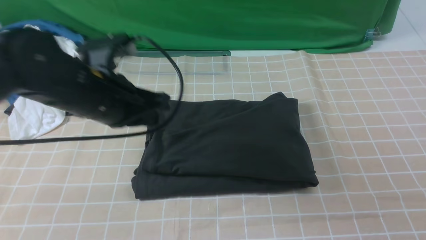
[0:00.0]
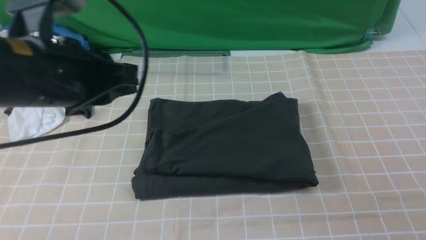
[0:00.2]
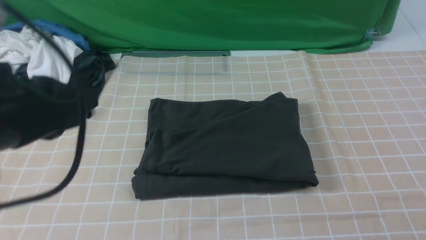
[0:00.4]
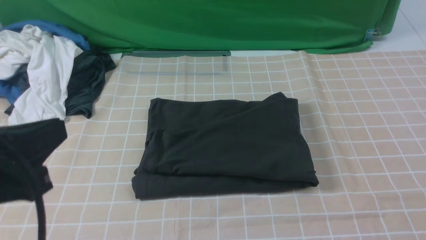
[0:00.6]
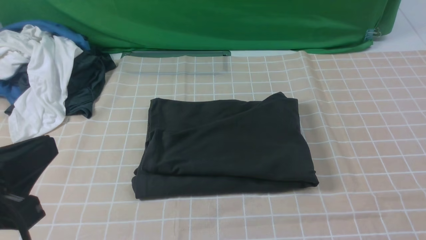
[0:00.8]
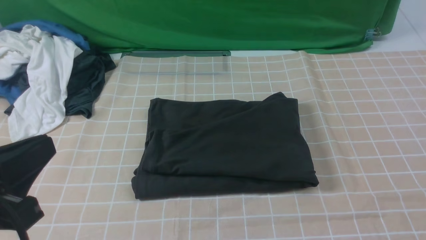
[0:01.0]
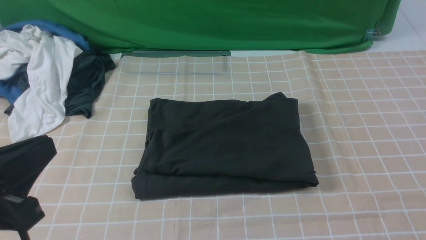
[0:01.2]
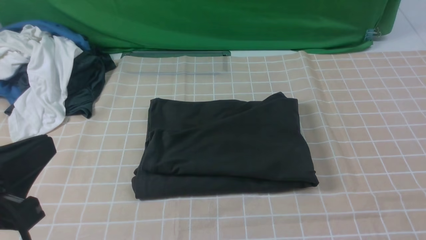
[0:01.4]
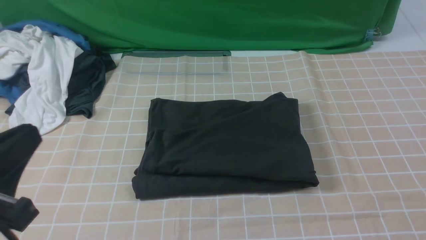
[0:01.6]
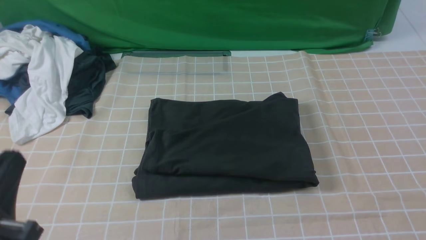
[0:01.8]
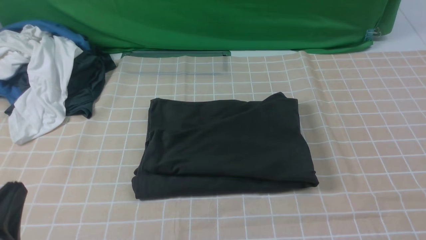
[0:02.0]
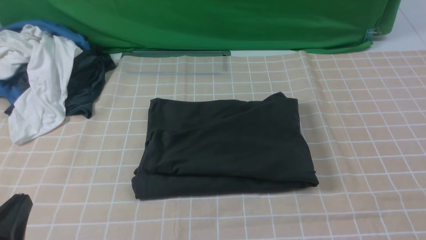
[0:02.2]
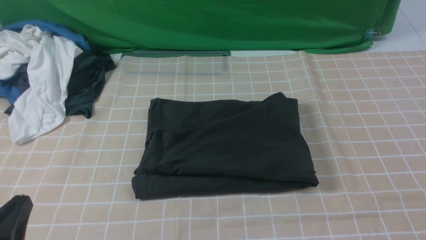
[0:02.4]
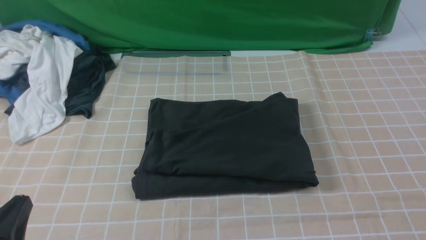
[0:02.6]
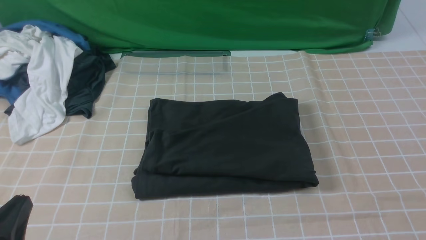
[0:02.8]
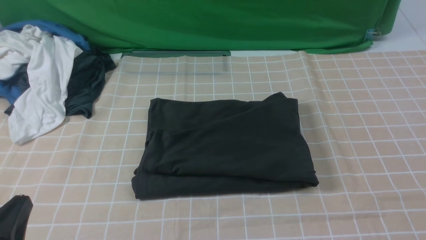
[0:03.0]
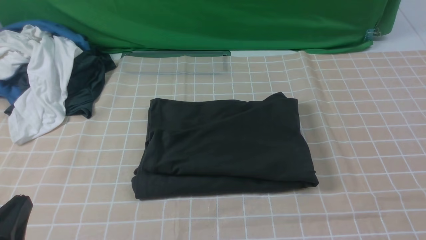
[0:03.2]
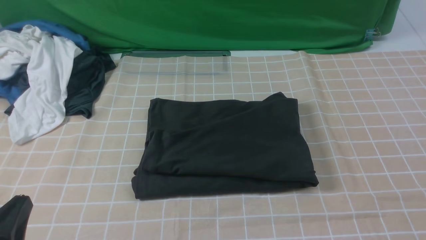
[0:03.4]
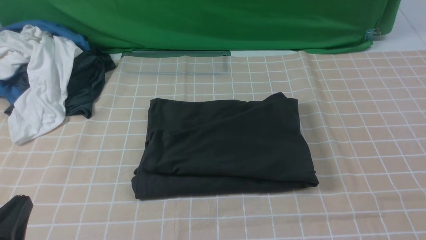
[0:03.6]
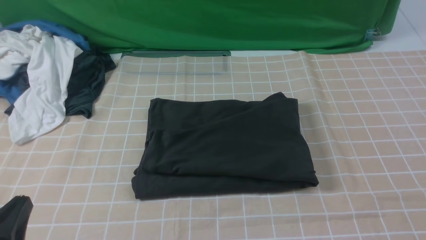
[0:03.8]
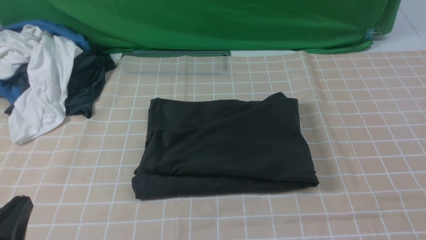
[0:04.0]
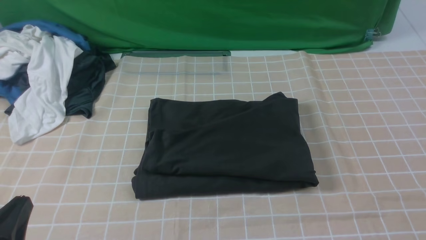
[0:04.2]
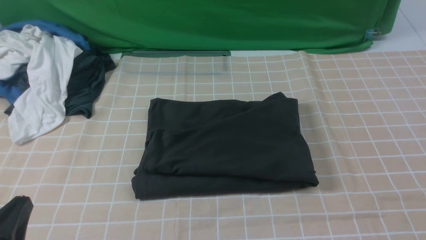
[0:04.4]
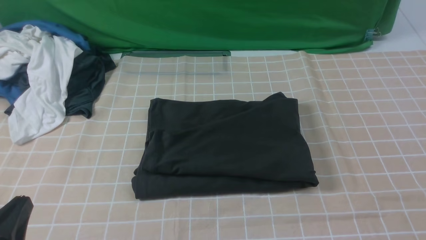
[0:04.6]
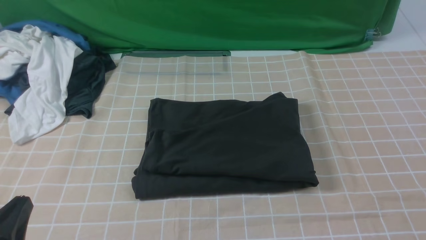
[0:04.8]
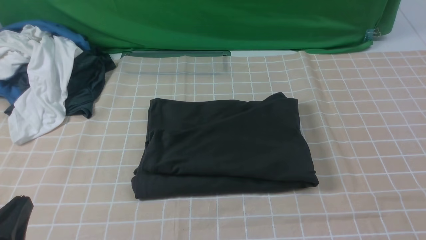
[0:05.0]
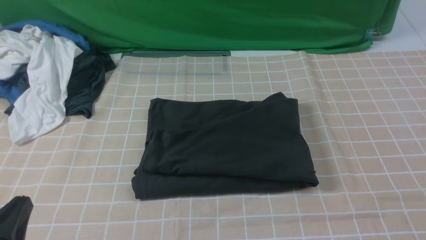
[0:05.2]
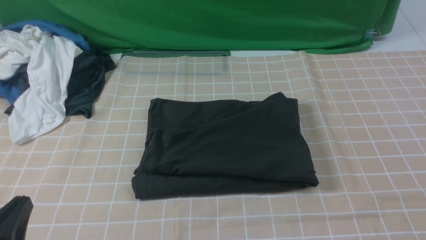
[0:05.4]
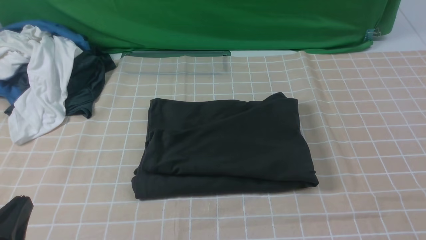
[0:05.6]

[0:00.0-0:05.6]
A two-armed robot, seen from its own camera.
0:00.0 to 0:01.4: The left gripper is displaced backward and to the left by roughly 20 cm. The right gripper moves backward and downward, roughly 10 cm.
0:01.4 to 0:02.8: The left gripper moves downward, approximately 10 cm.
0:04.2 to 0:05.6: Both grippers stay put.

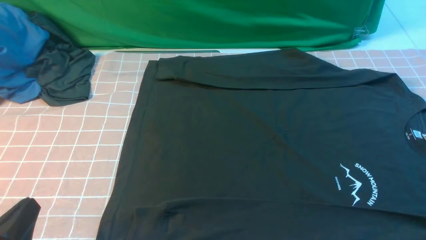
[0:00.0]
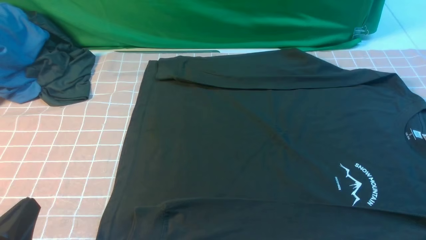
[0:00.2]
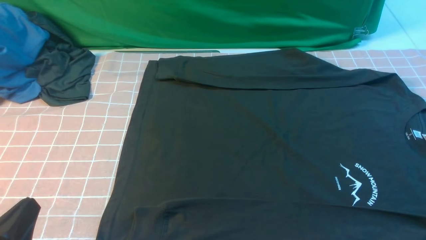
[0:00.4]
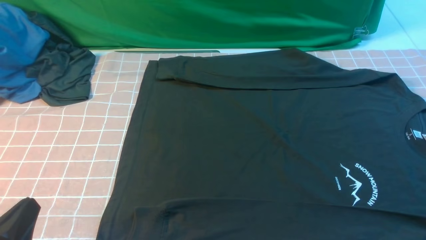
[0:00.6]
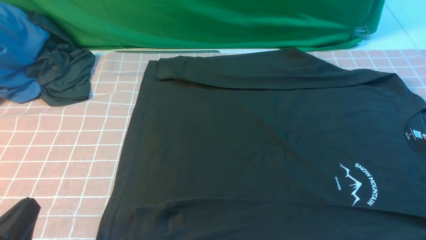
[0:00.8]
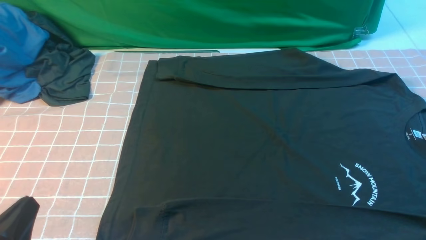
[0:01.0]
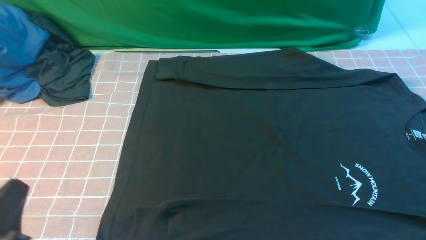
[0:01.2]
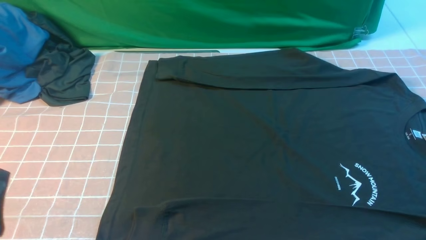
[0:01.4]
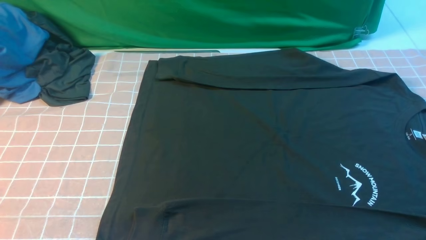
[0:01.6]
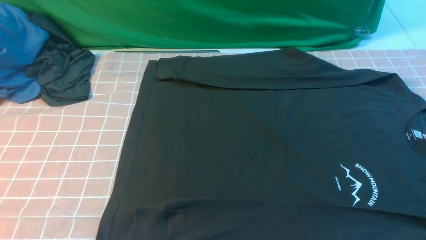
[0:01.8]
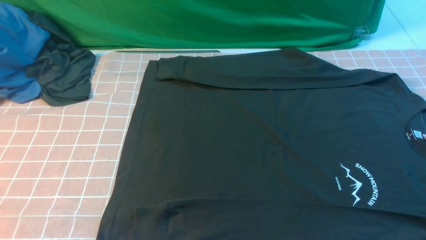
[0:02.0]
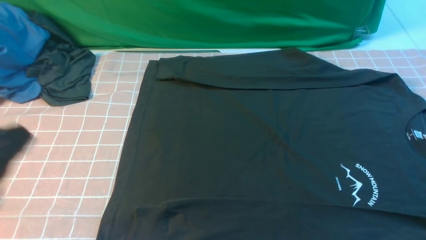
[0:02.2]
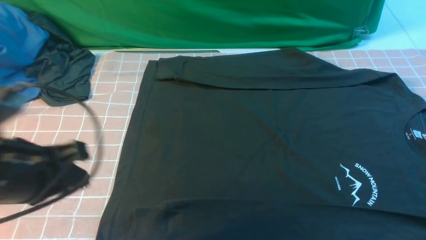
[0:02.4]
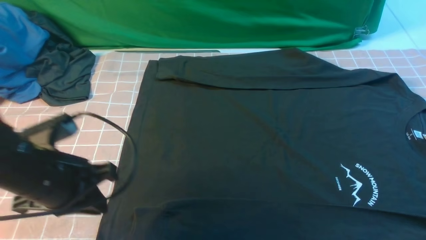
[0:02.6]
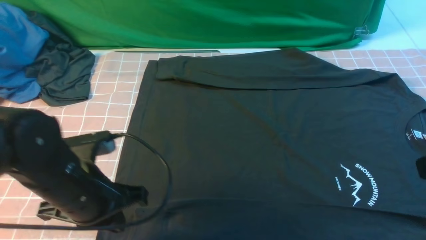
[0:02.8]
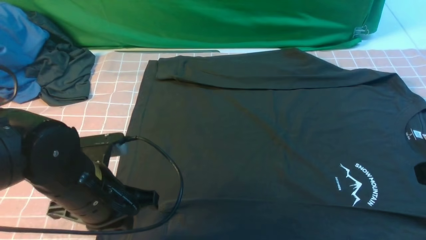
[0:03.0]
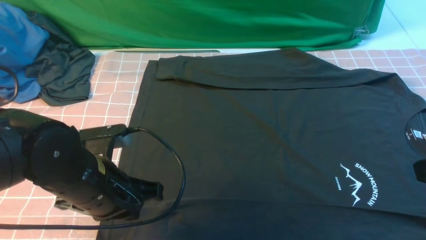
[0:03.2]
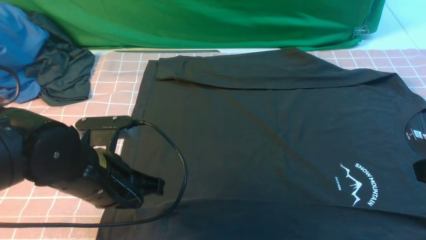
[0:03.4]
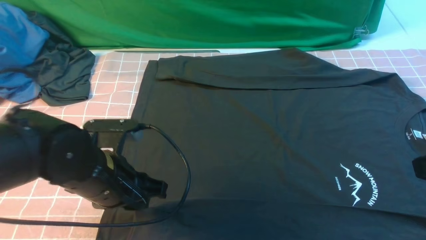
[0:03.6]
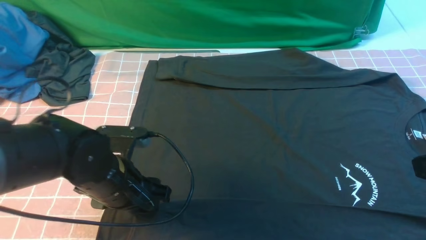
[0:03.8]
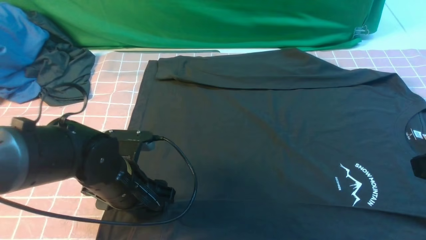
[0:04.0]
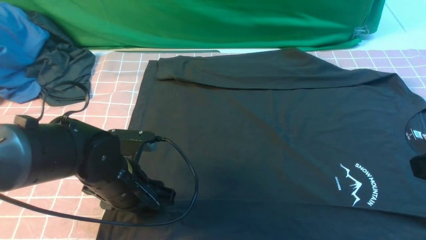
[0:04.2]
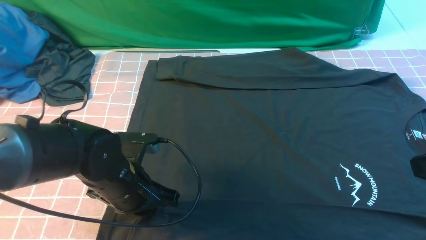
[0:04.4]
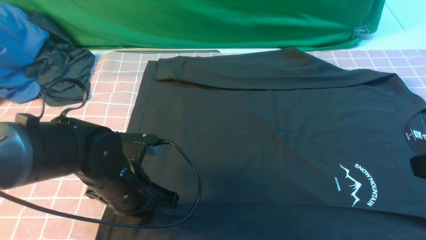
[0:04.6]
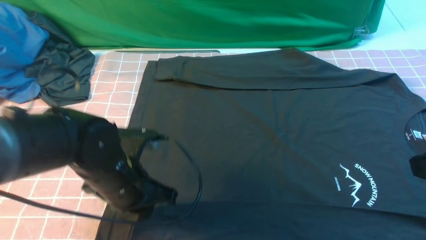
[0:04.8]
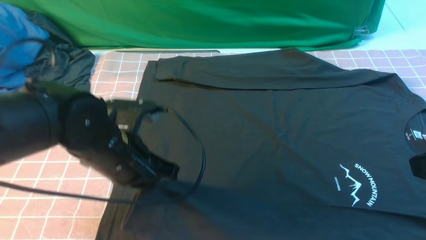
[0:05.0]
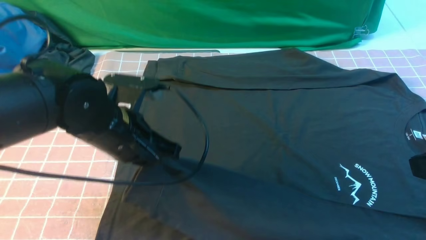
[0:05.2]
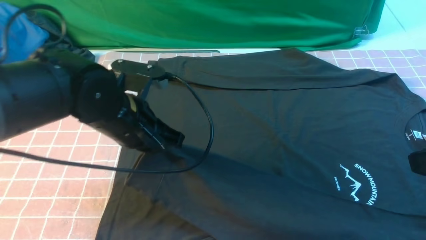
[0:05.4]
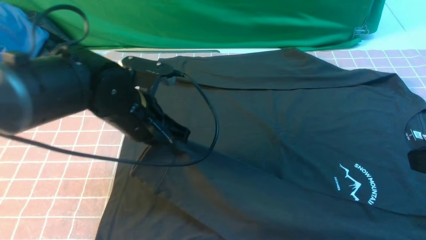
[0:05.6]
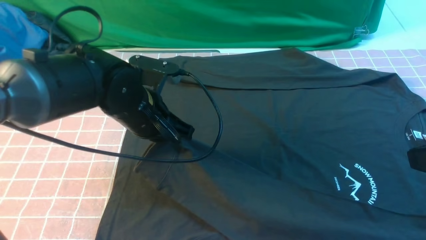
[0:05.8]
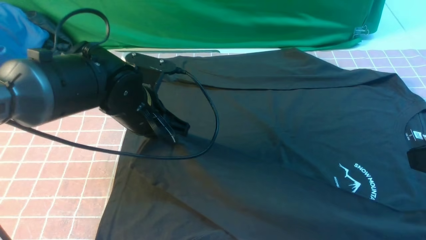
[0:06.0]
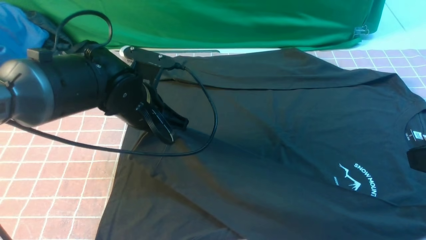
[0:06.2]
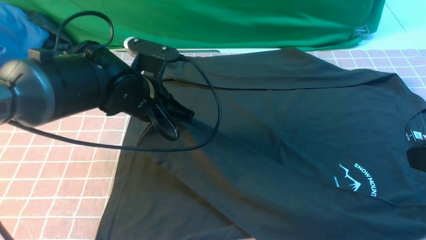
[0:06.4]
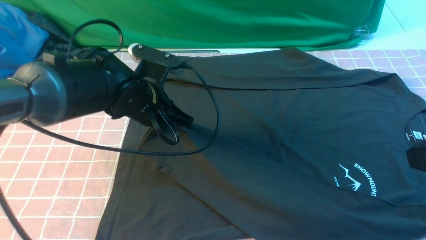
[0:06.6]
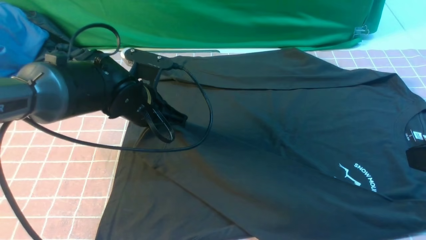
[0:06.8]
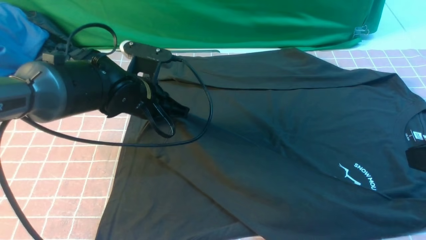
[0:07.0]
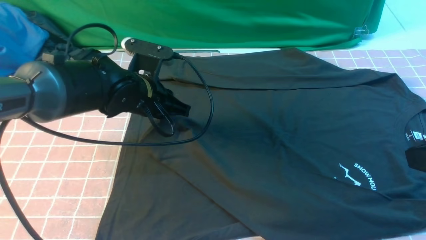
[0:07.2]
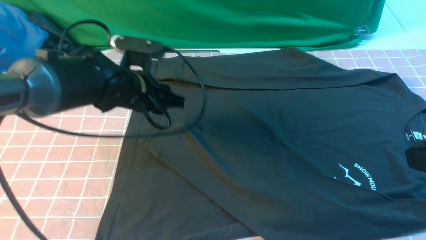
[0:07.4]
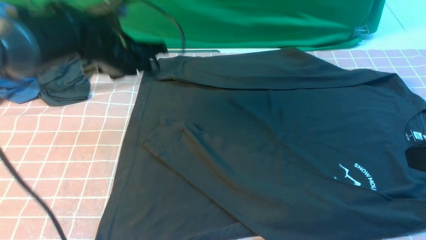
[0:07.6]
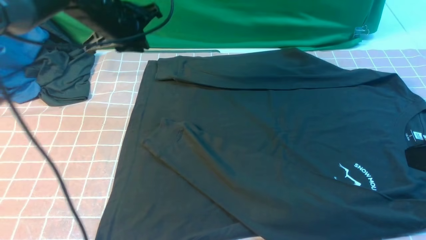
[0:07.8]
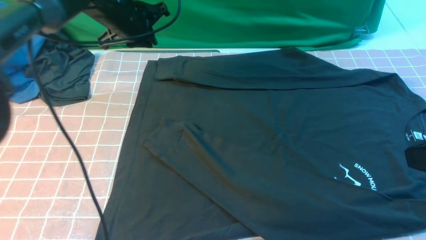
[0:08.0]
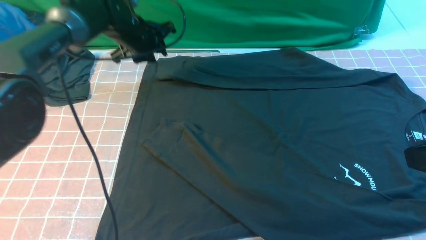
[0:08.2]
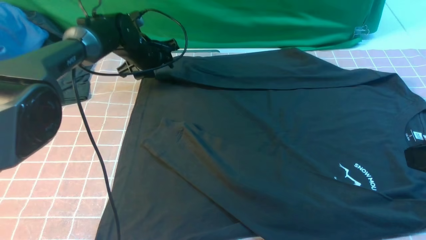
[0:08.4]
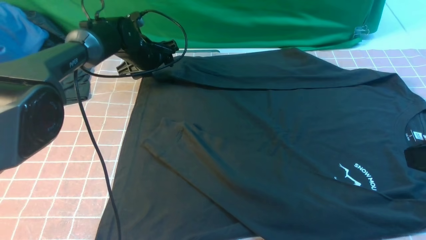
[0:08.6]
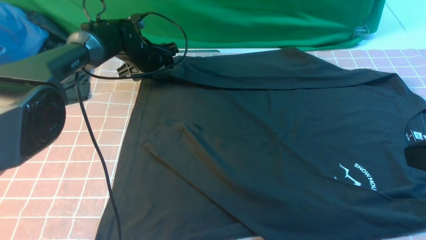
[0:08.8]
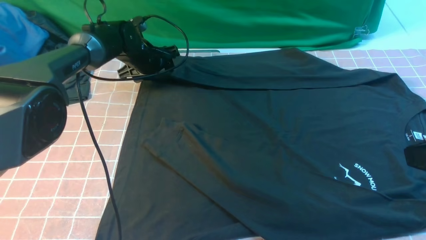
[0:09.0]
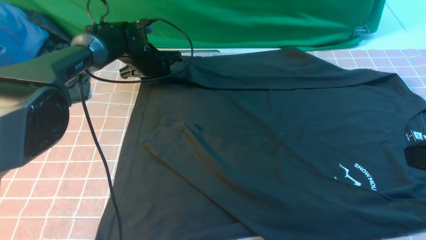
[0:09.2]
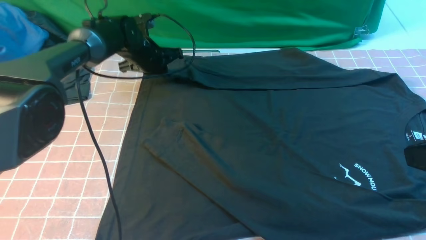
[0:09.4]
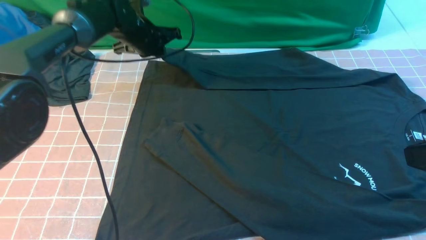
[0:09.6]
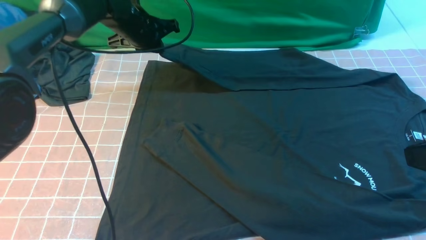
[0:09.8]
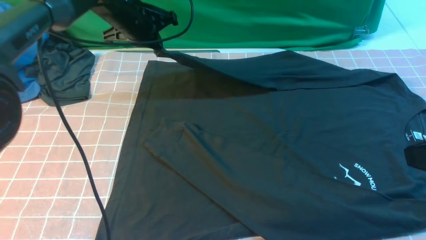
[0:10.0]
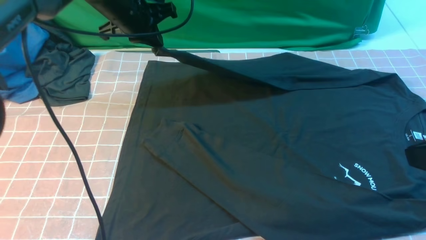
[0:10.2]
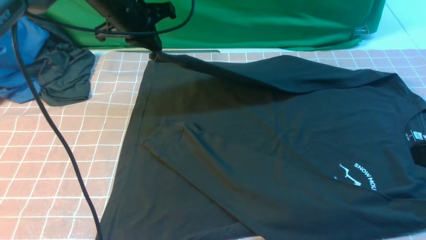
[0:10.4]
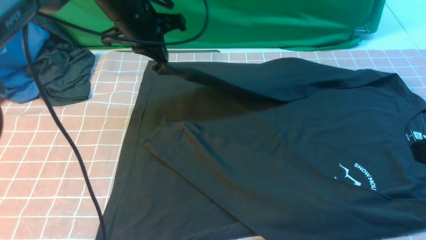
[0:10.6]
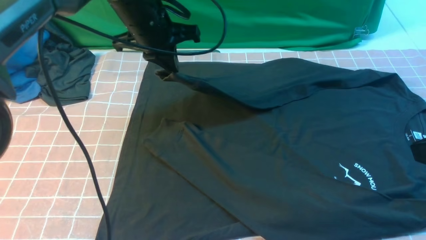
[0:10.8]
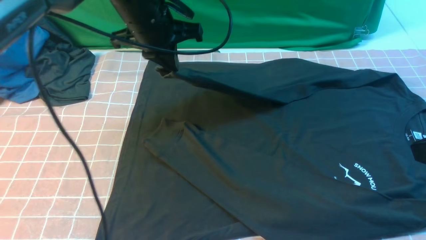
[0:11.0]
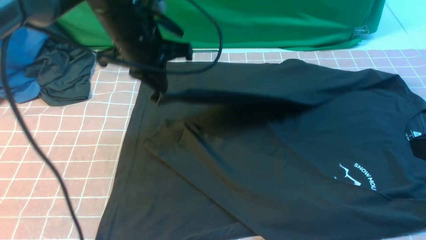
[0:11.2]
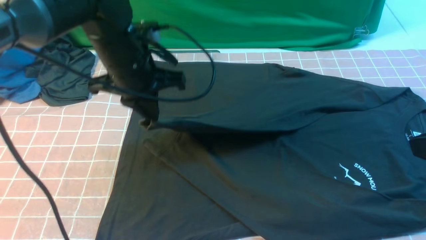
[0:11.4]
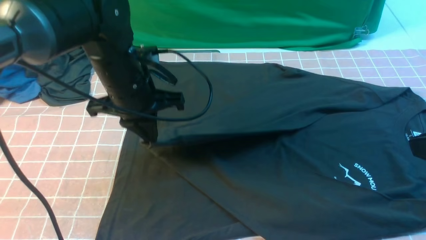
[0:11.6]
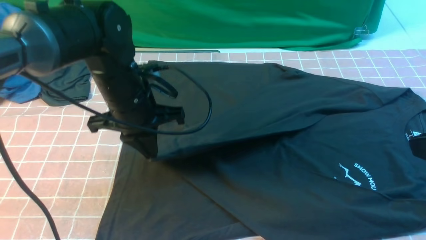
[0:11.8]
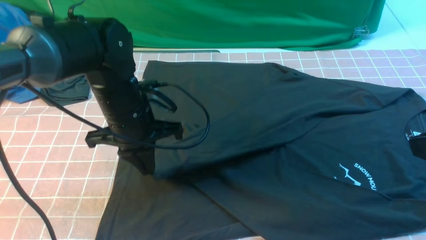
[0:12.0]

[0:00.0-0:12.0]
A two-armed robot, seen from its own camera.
Step, 0:00.0 to 0:04.6: use the left arm to clamp the cuff closest to it.
Step, 0:04.8 to 0:07.2: use the left arm to drag and place the cuff at the centered position on the left edge of the fabric.
Step, 0:07.4 to 0:09.2: use the left arm to clamp the cuff farthest from it.
0:01.6 to 0:03.0: The left gripper travels forward and to the right by some 20 cm.
0:03.0 to 0:04.4: The left gripper heads downward, covering approximately 5 cm, and opens and closes again.
0:04.4 to 0:06.0: The left gripper moves forward and upward, about 10 cm.
0:06.0 to 0:07.6: The left gripper heads forward, covering approximately 10 cm, and opens up.
0:07.6 to 0:09.0: The left gripper moves forward and downward, roughly 15 cm, and opens up.
0:09.0 to 0:10.4: The left gripper moves upward and backward, roughly 15 cm, and closes up.
0:10.4 to 0:12.0: The left gripper goes approximately 15 cm backward and downward.
